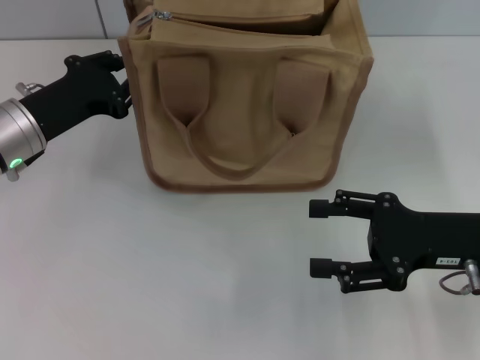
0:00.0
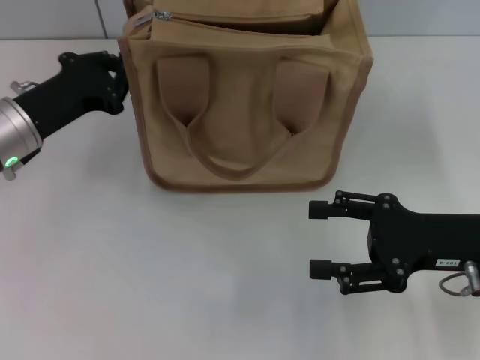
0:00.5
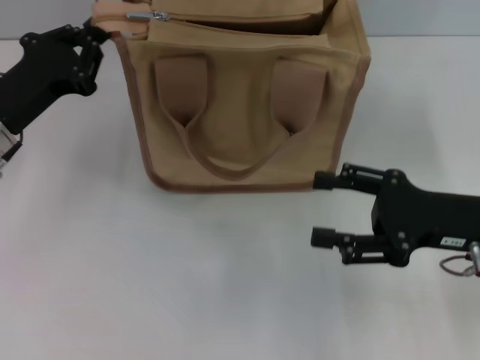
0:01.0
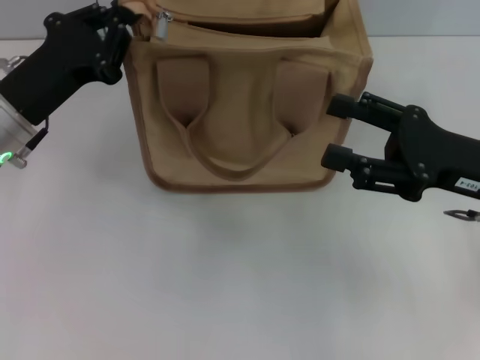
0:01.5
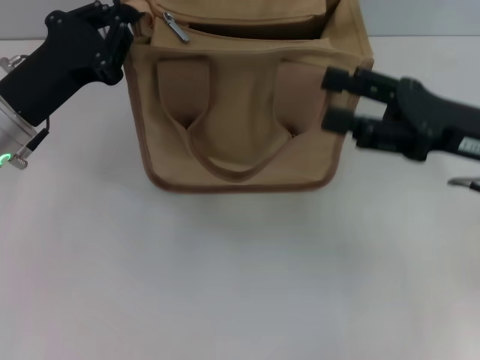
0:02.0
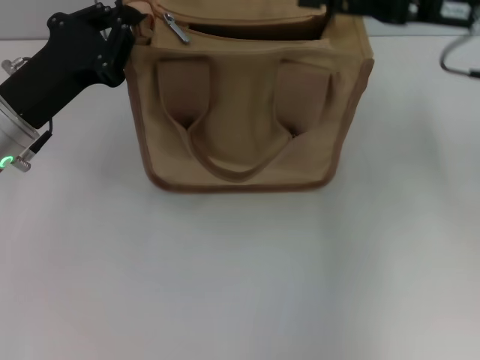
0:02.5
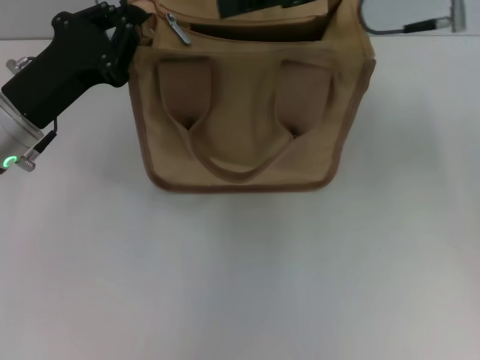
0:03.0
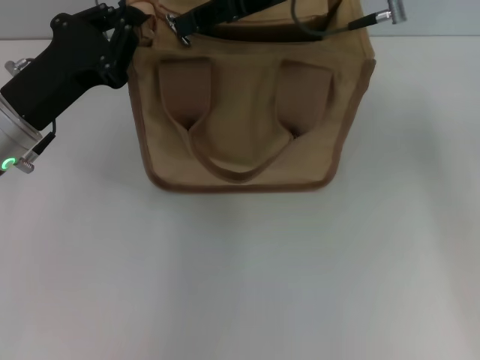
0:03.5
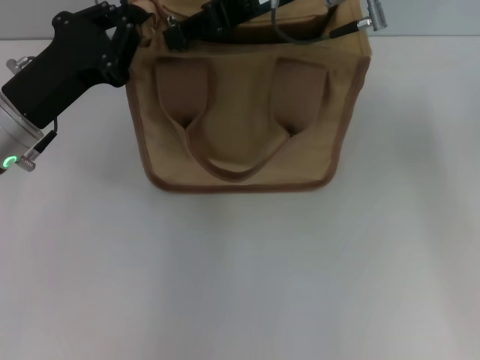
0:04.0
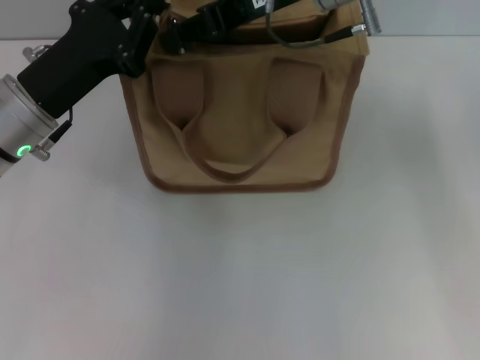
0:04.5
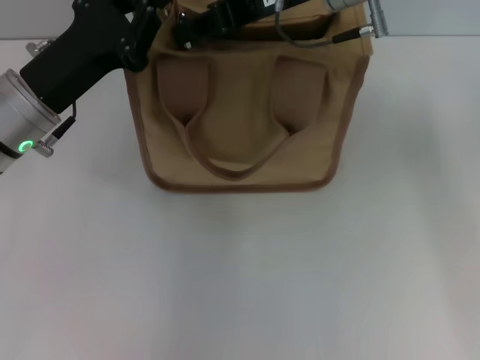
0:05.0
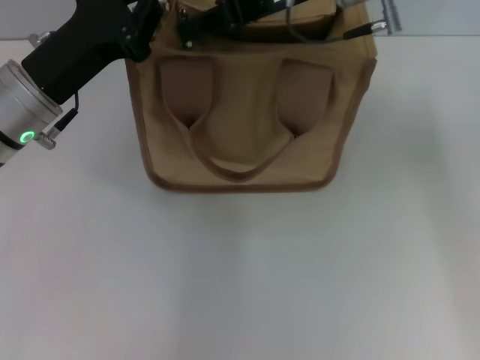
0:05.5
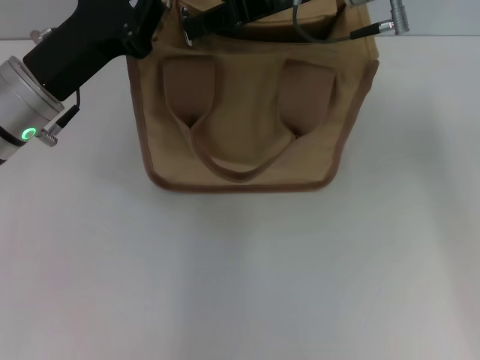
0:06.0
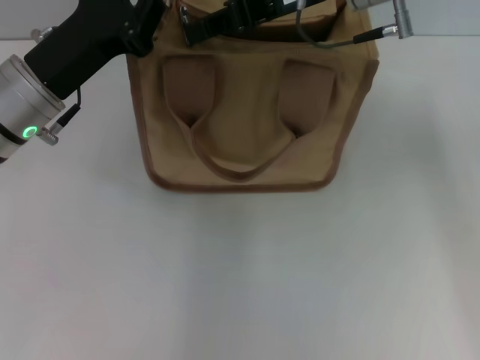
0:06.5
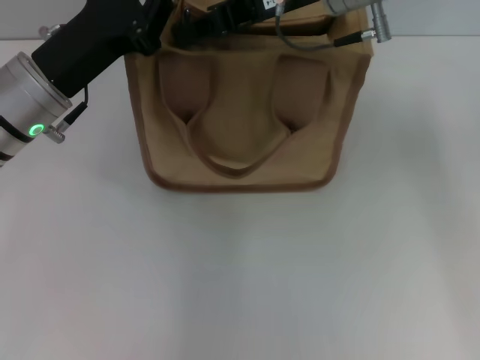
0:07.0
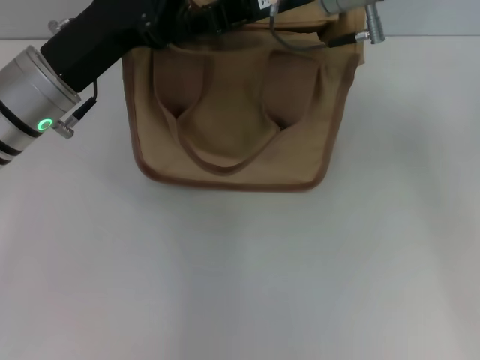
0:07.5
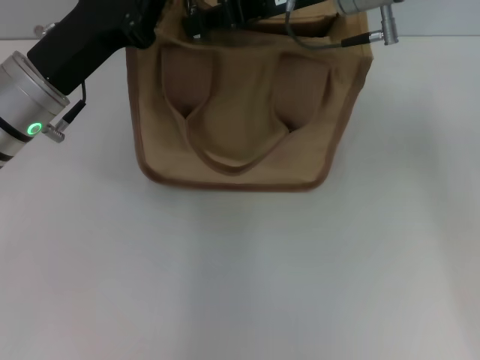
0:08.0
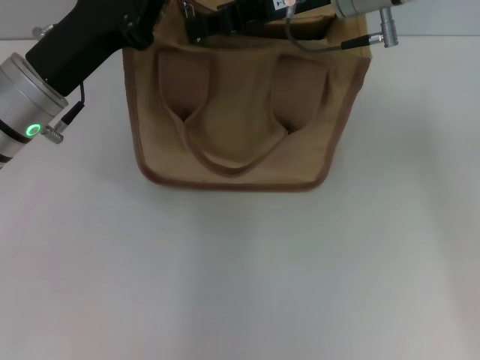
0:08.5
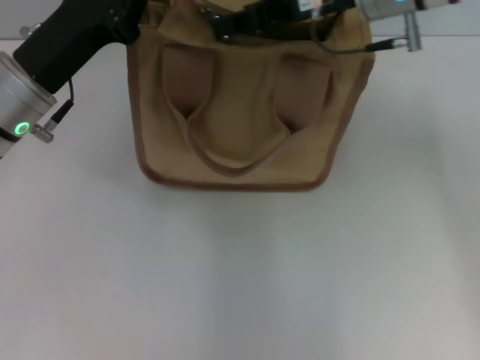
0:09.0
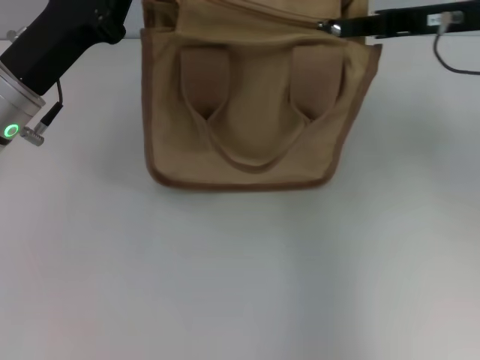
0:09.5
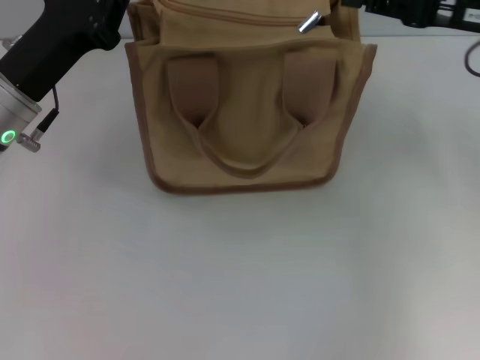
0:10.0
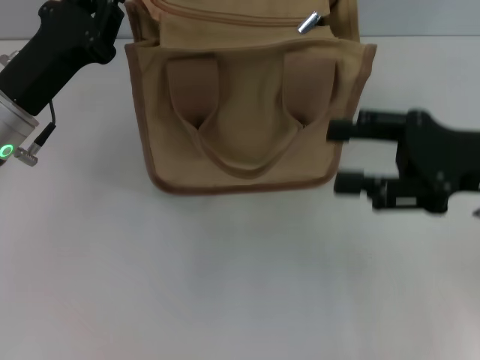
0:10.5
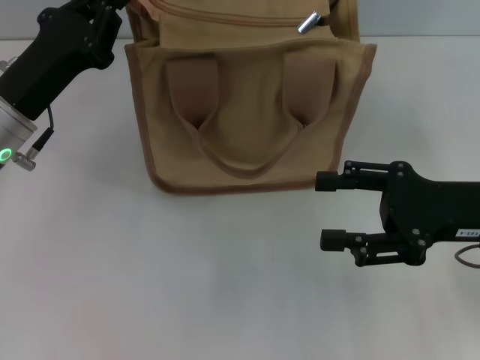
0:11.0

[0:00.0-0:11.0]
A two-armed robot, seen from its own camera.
Step, 0:00.0 to 0:09.5: Pull up the zipper with your right hand.
0:00.0 to 0:02.0: The left gripper closes. Meanwhile the right gripper is displaced upward by some 5 cm.
0:02.0 to 0:03.5: The right gripper travels to the left, forward and upward by roughly 25 cm, and closes up.
0:03.5 to 0:09.0: There are only small adjustments of the grippers.
0:09.0 to 0:11.0: The right gripper travels backward, to the right and downward by approximately 20 cm, and opens up.

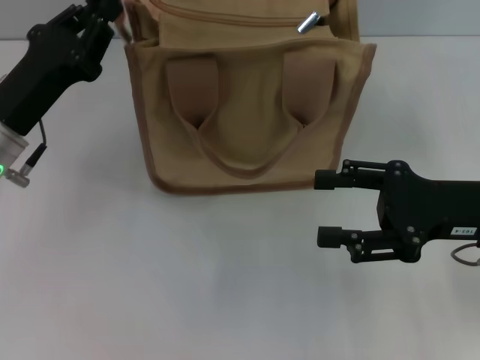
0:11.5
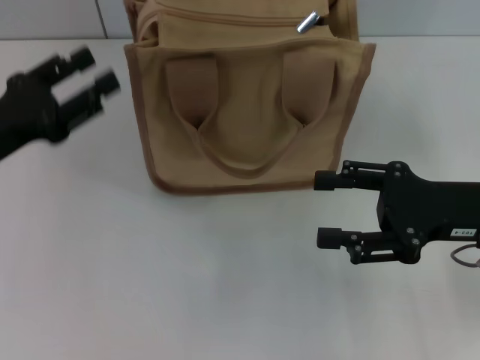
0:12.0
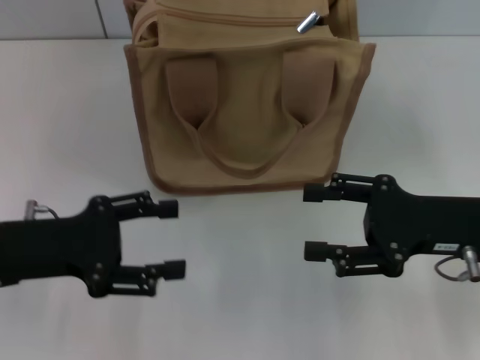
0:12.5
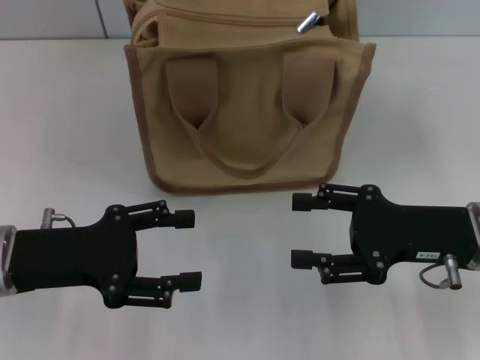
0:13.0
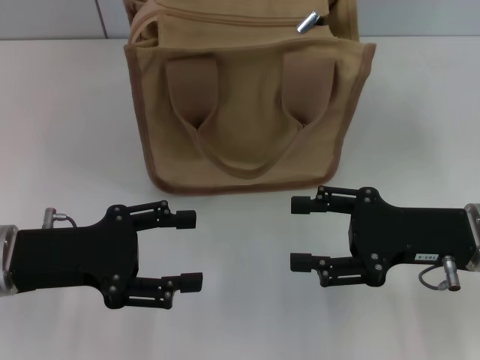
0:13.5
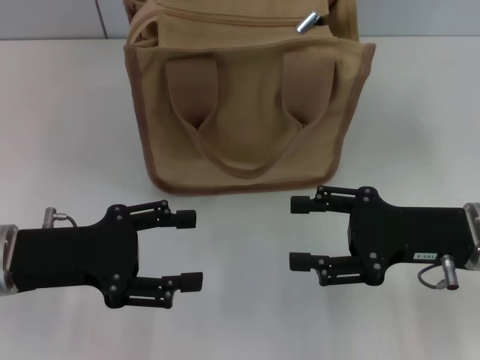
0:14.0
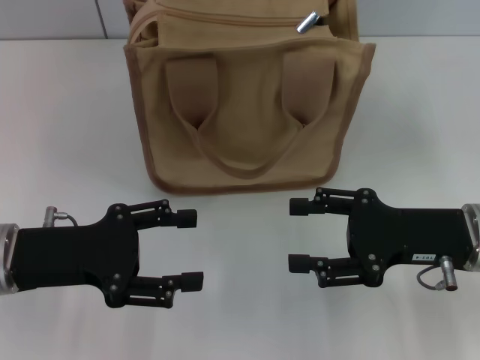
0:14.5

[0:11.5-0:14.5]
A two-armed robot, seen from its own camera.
0:11.5 to 0:13.0: The left gripper is displaced backward by approximately 5 cm, and opens its fingers.
0:13.0 to 0:14.5: Both grippers stay put.

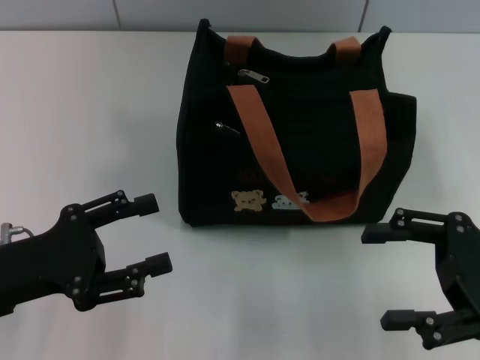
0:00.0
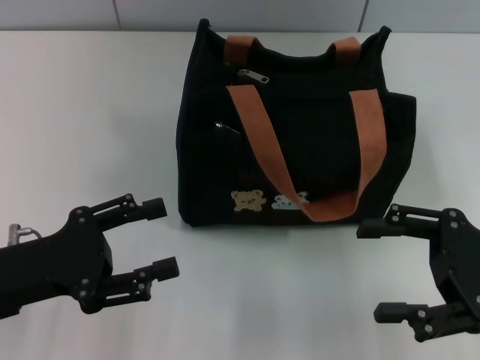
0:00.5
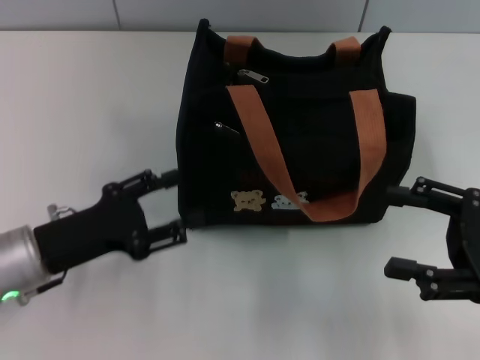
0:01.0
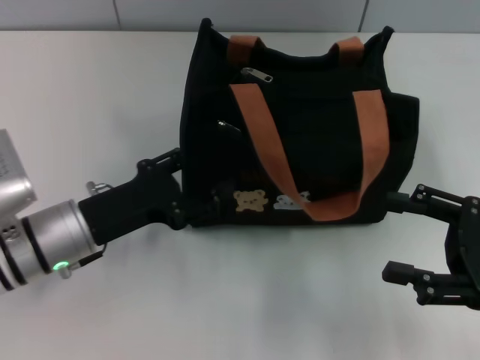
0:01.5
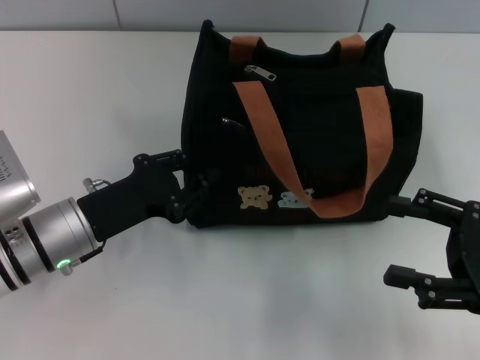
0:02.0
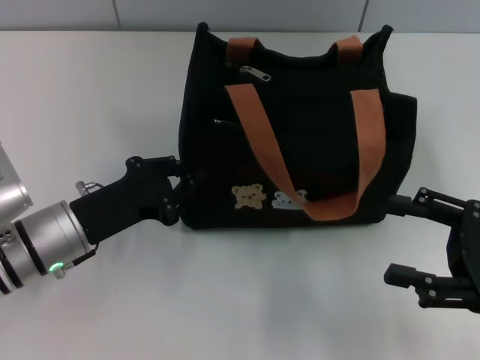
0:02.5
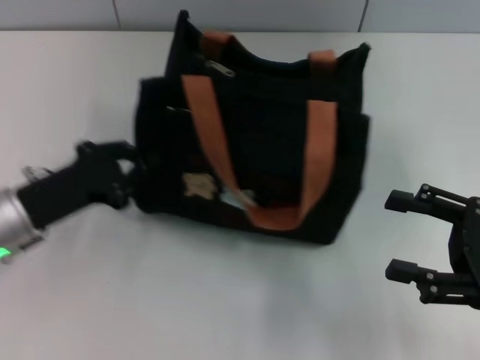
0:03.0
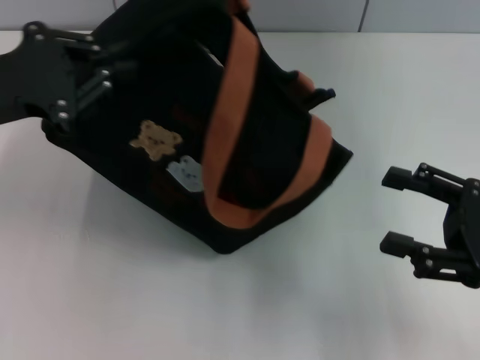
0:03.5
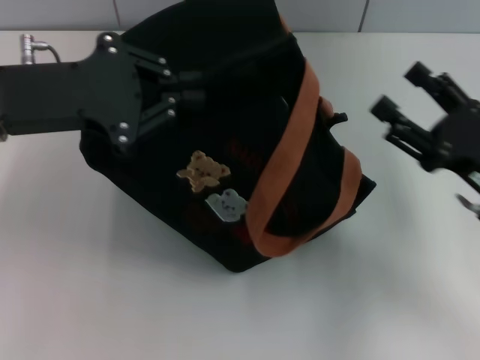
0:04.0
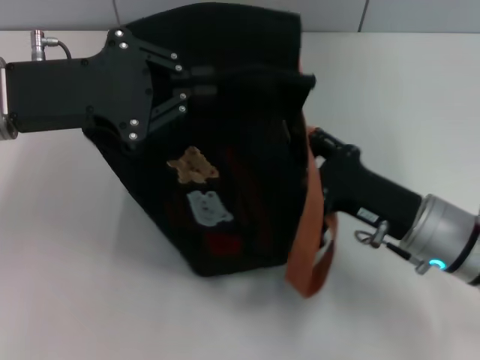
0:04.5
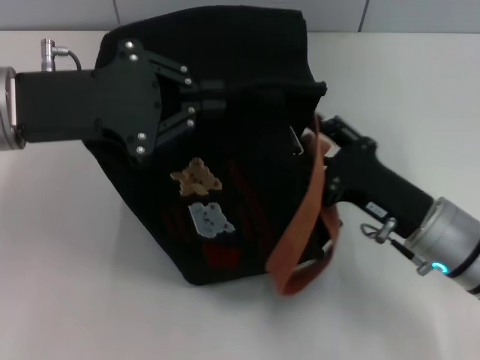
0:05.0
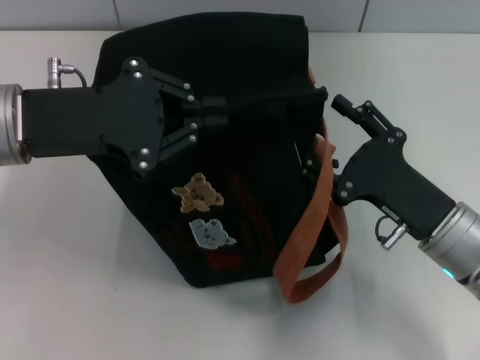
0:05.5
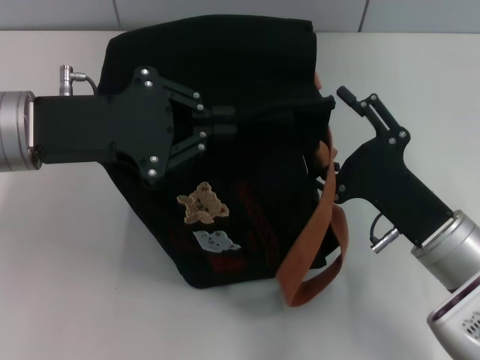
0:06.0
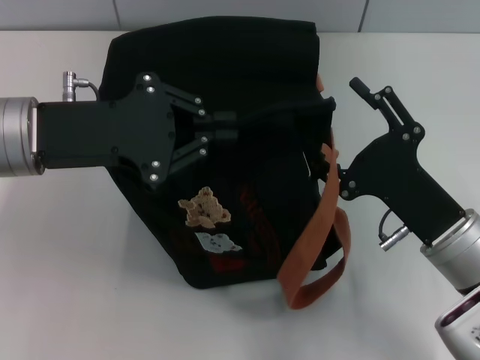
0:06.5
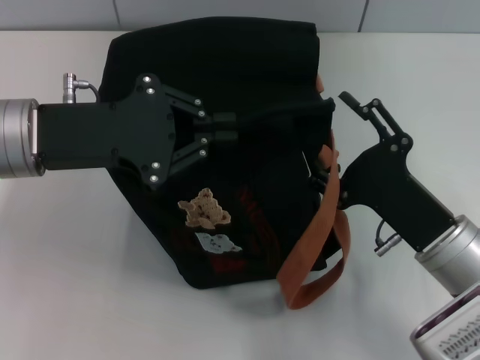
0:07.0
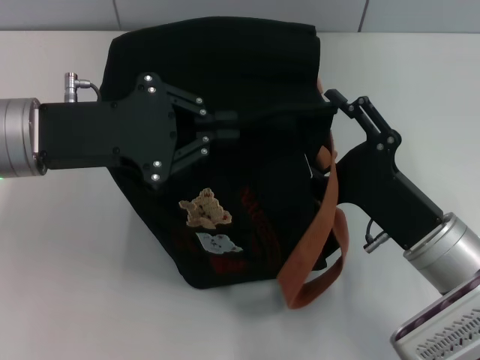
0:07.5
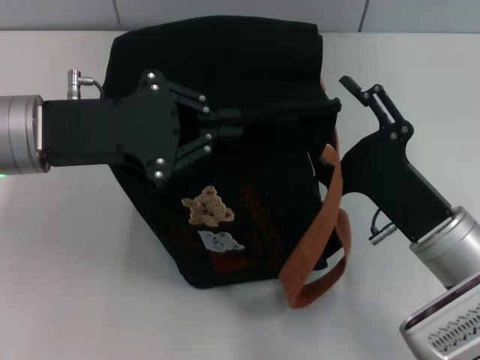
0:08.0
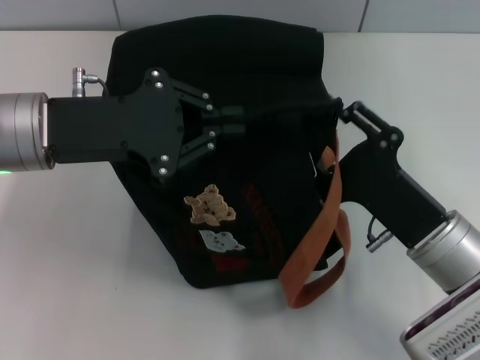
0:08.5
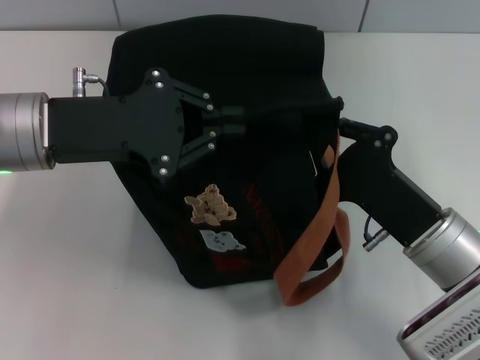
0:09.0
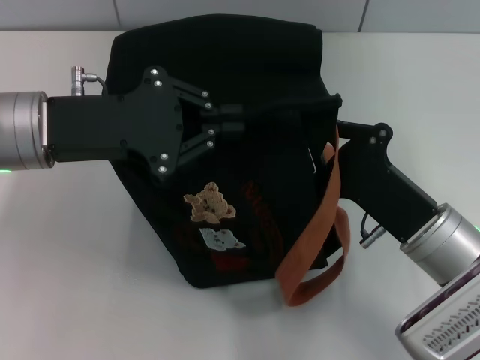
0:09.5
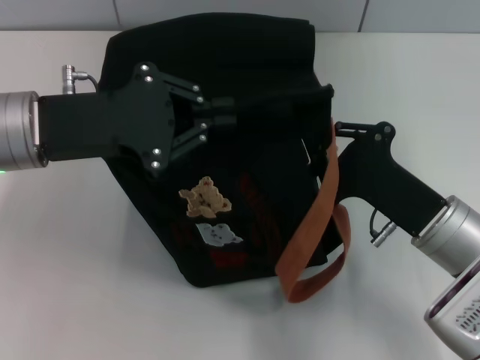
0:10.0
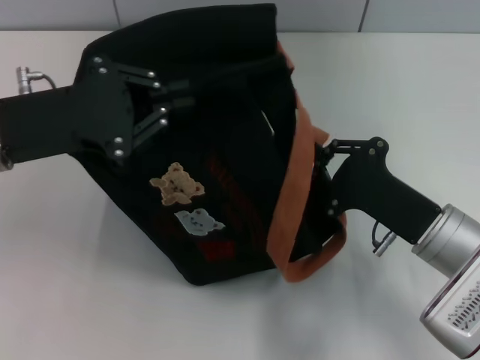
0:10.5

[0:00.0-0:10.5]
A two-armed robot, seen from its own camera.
0:00.0 to 0:02.0: The left gripper moves to the right and forward, about 10 cm.
0:02.0 to 0:04.0: The left gripper moves upward, roughly 15 cm, and closes up. The right gripper moves approximately 5 cm.
0:04.0 to 0:06.5: The right gripper goes roughly 5 cm to the left.
0:06.5 to 0:08.5: The grippers move only a little.
0:08.5 to 0:10.5: The right gripper closes its fingers.

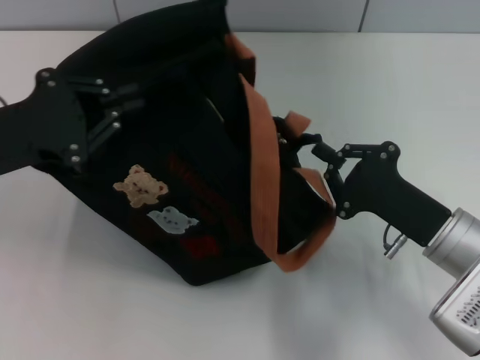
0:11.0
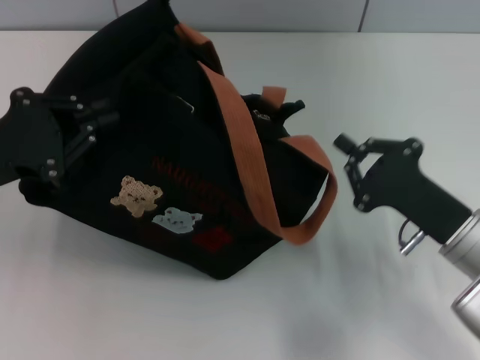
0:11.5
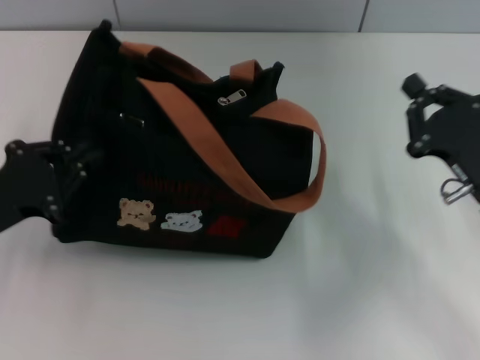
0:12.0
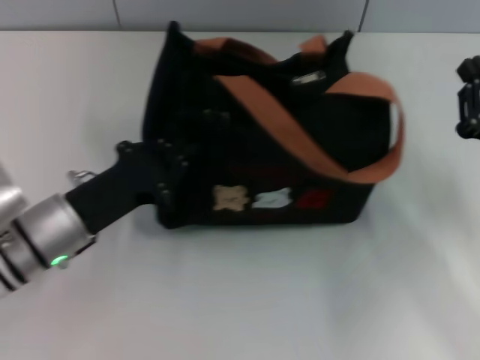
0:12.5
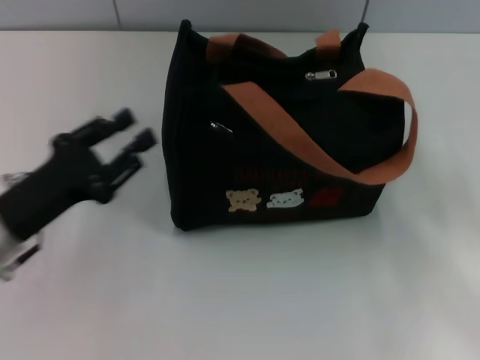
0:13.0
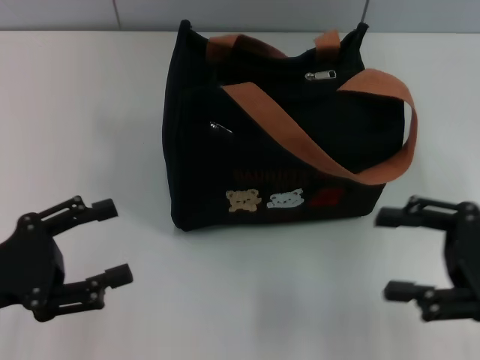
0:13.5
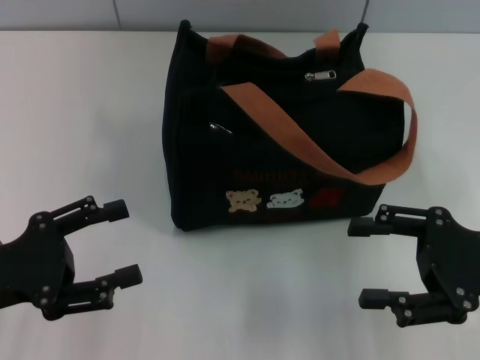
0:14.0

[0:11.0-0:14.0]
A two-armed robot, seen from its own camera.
Step, 0:12.0 to 0:12.5: Grab the bag with your left hand.
0:11.0 to 0:12.5: The right gripper is displaced to the right by roughly 5 cm; the left gripper moves downward and to the right, about 15 cm.
0:12.5 to 0:14.0: The left gripper heads to the left and backward, covering roughly 10 cm, and opens its fingers. Meanwhile the right gripper changes place by approximately 5 cm, and opens up.
